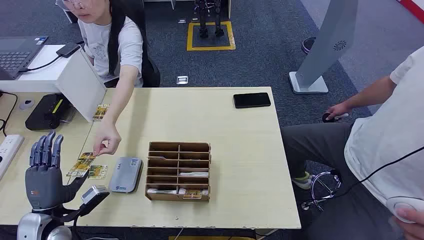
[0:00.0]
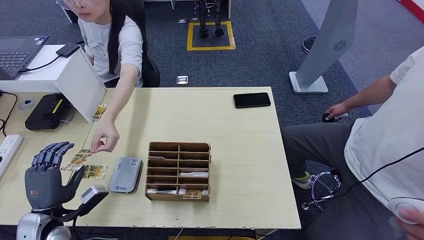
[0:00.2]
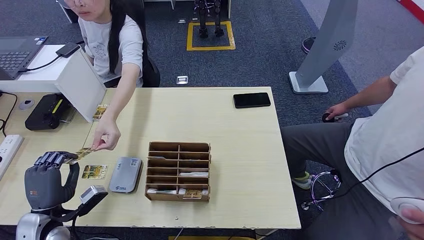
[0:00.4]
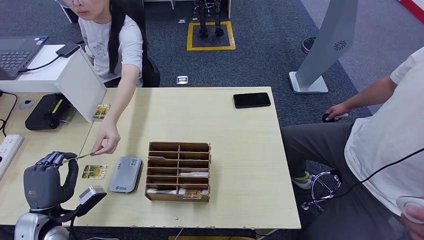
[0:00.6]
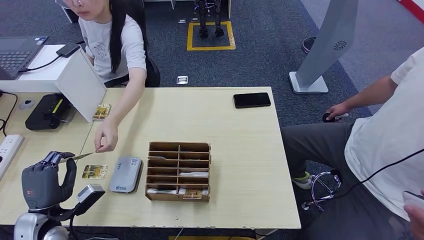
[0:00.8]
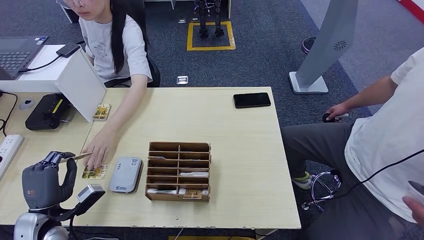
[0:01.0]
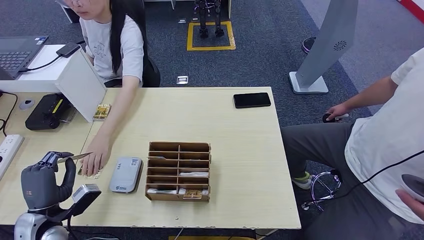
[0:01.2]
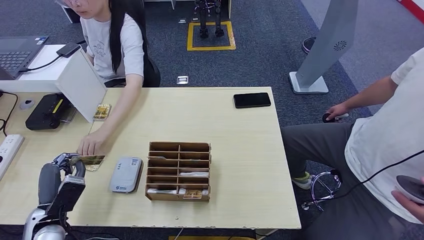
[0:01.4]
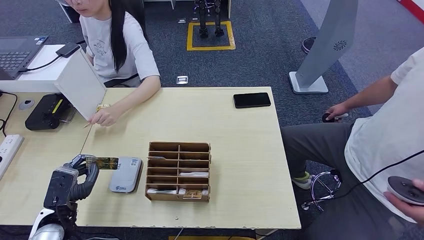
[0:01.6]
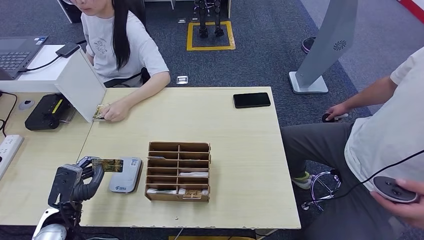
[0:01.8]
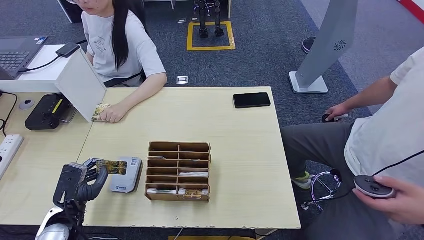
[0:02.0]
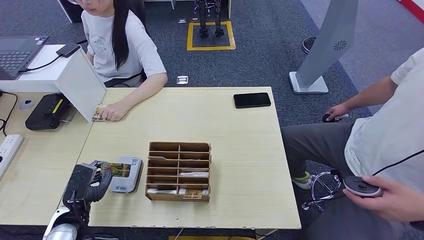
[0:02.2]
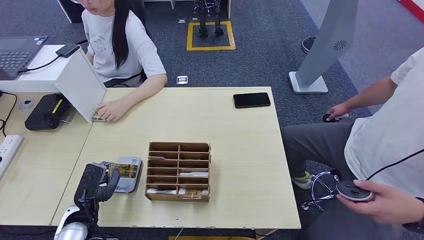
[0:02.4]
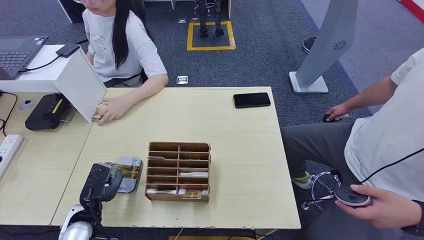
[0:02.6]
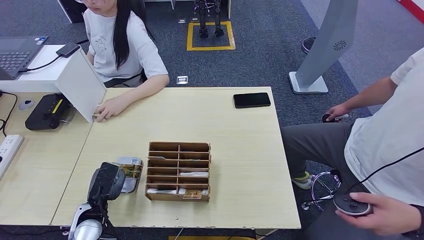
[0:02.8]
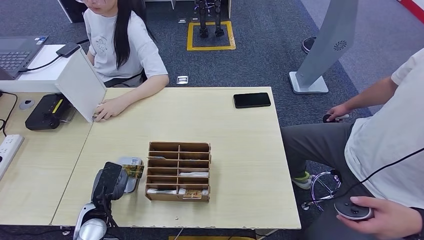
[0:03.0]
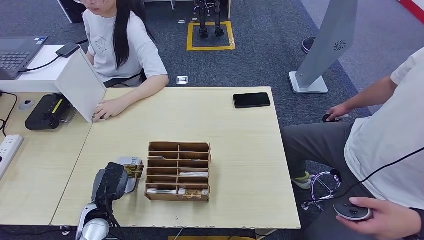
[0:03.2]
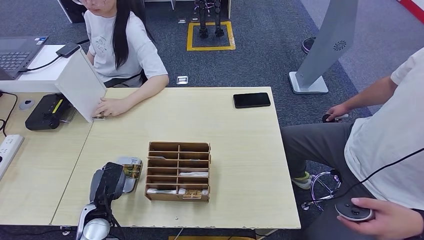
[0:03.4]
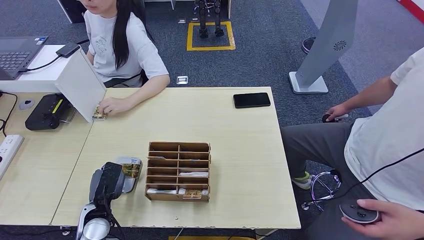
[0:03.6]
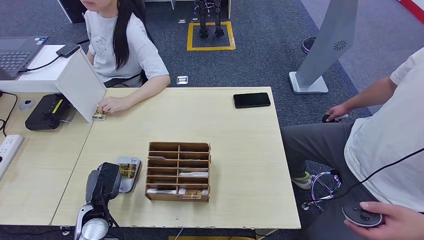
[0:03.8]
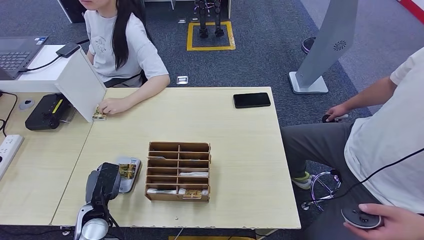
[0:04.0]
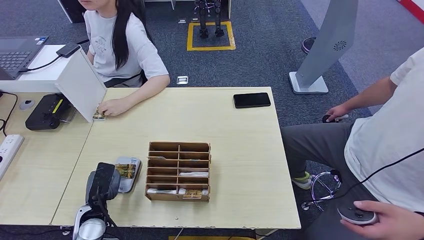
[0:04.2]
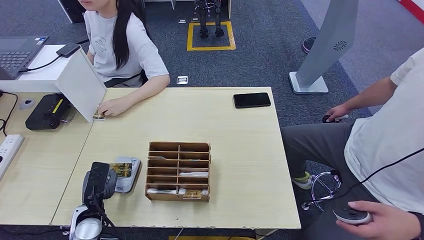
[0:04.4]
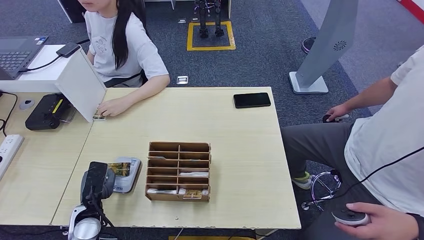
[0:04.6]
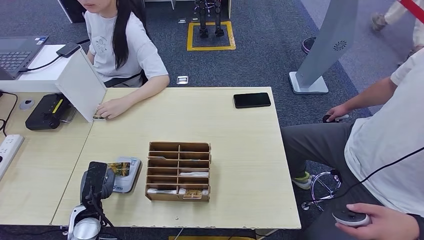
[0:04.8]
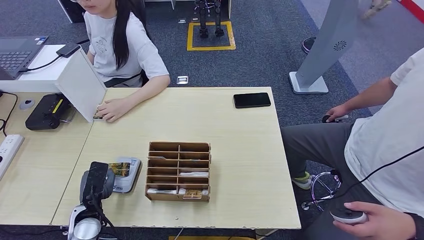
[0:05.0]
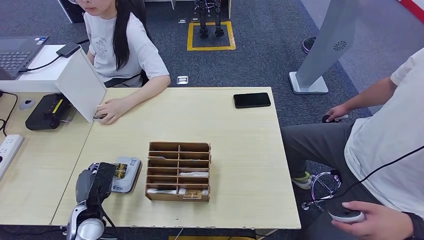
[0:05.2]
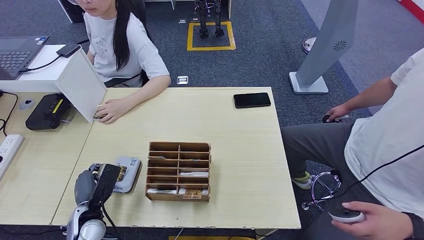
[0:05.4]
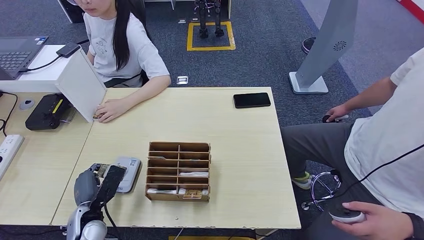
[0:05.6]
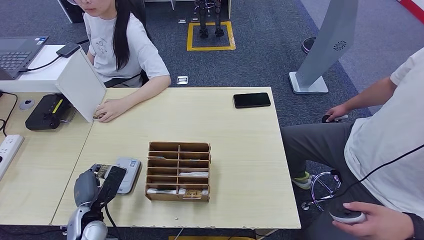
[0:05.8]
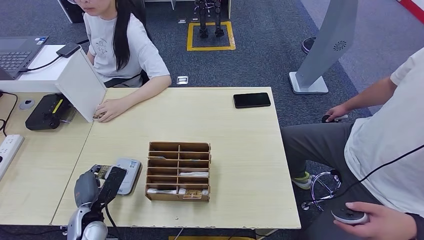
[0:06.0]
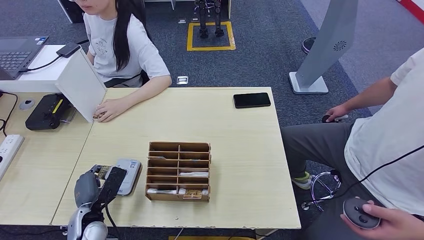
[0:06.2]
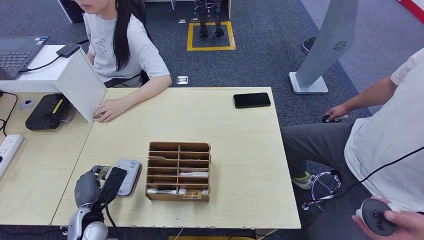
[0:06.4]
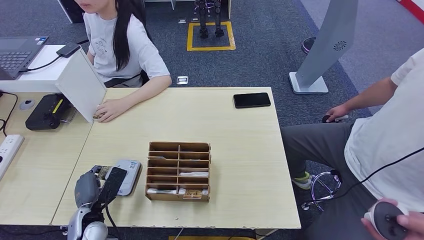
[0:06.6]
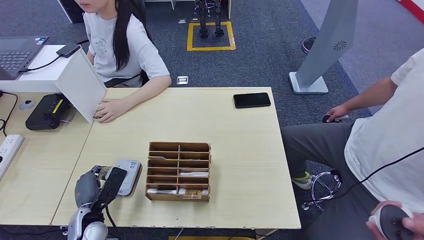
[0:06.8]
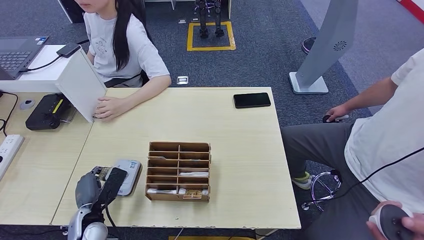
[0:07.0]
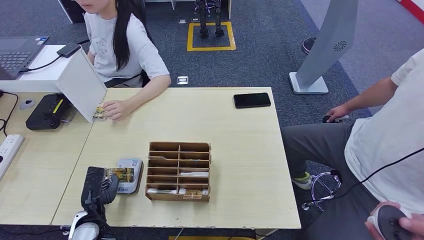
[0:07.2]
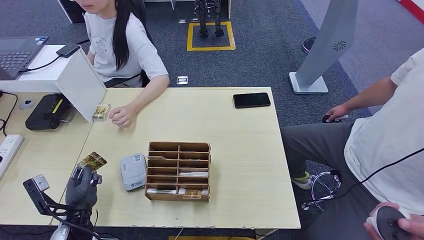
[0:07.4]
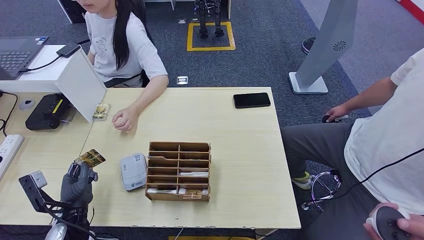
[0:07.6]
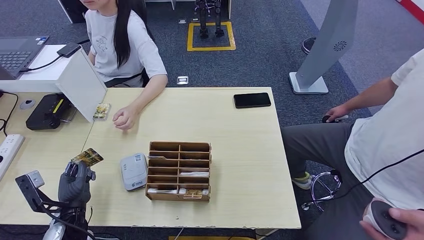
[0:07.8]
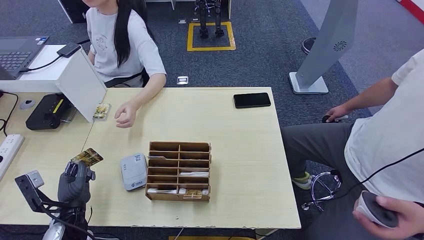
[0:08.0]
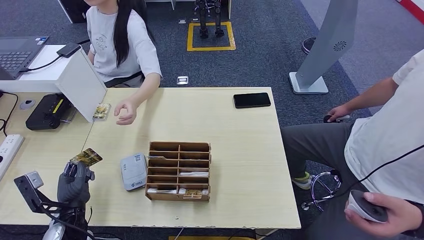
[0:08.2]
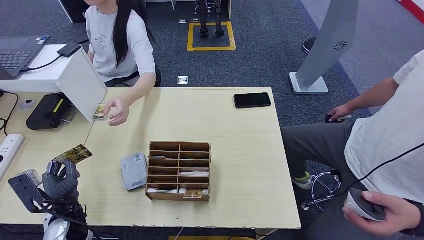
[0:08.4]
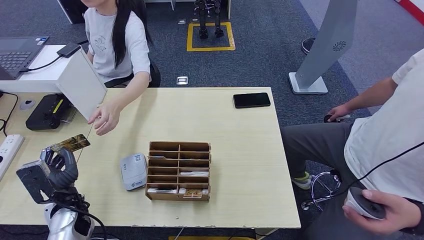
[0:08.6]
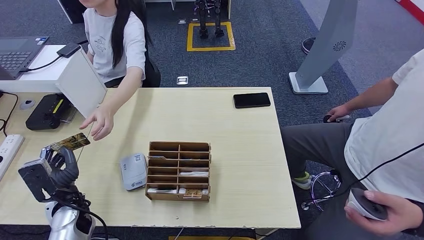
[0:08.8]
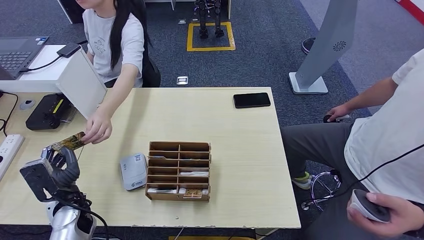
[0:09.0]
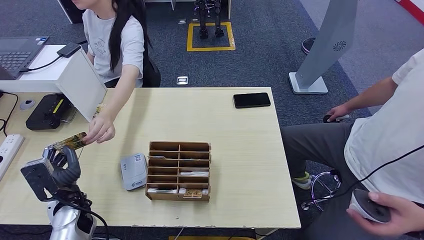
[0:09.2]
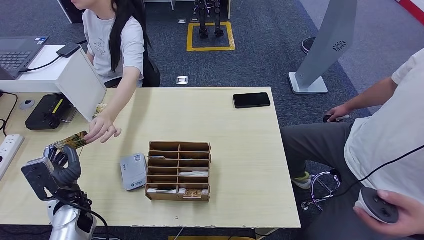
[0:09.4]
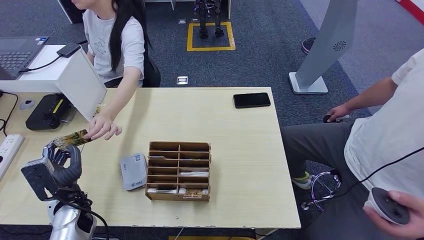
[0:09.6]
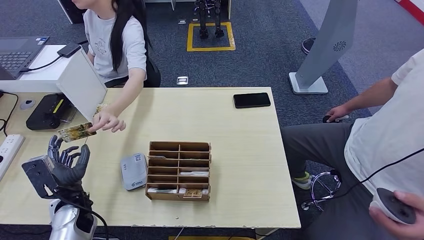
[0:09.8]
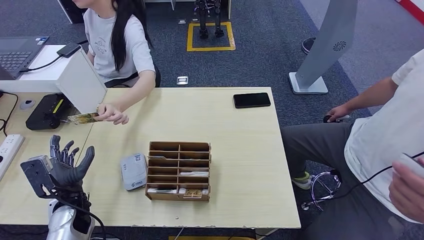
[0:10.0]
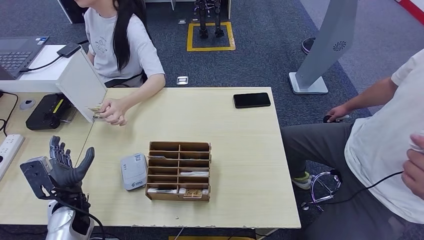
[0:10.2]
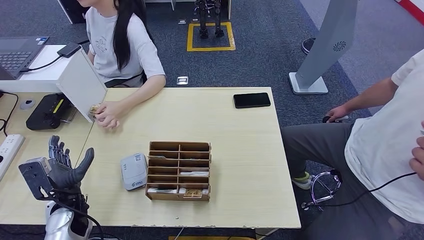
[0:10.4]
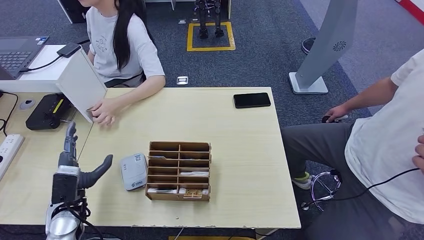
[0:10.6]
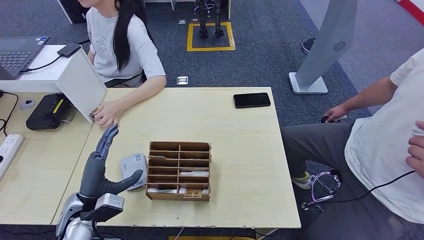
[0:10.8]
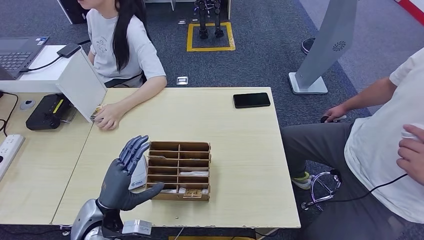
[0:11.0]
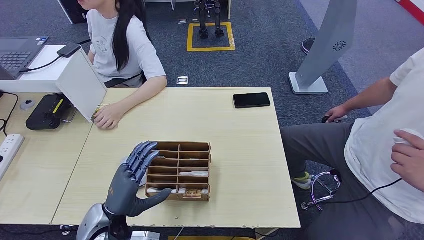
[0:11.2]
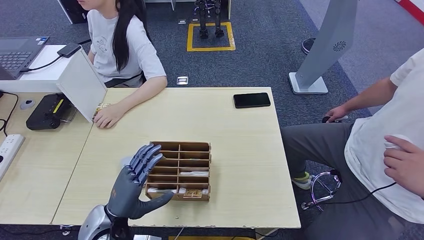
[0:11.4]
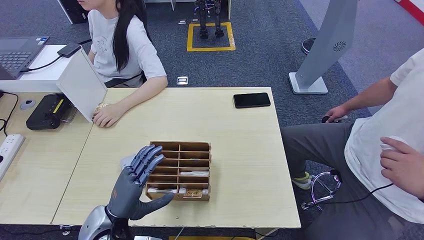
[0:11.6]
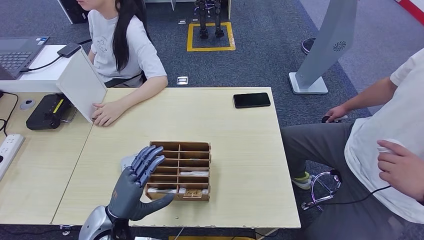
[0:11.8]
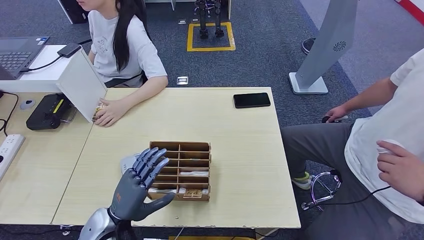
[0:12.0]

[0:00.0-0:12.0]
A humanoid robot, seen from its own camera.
Step, 0:00.0 to 0:01.0: Take the ID card from the person's hand.
Step, 0:02.0 to 0:04.0: Place the ID card on the card reader.
Step, 0:06.6 to 0:10.2: Hand the ID card to the person.
0:01.6 to 0:03.0: The left hand is displaced to the right by some 5 cm.
0:03.0 to 0:04.4: There are only small adjustments of the hands.
0:09.0 to 0:10.4: There are only small adjustments of the hands.
0:10.4 to 0:12.0: The left hand shifts about 15 cm to the right and backward.

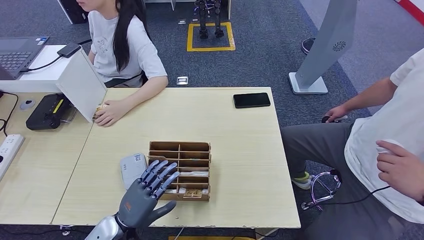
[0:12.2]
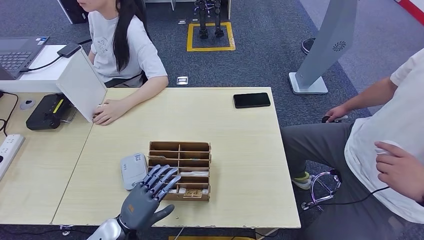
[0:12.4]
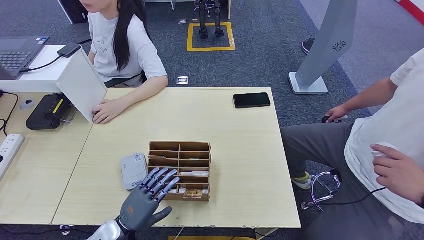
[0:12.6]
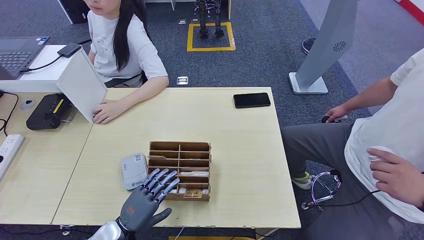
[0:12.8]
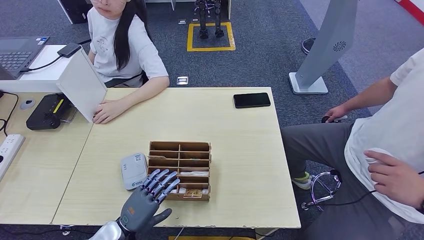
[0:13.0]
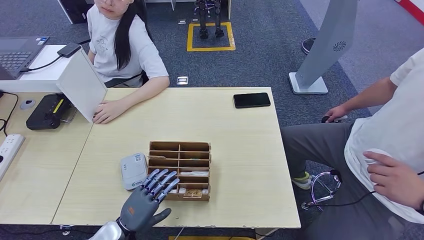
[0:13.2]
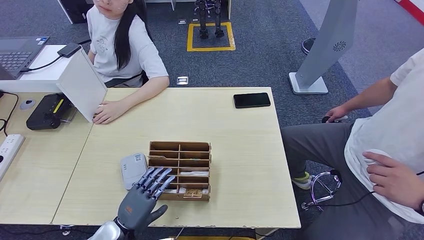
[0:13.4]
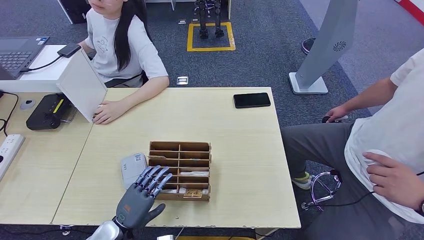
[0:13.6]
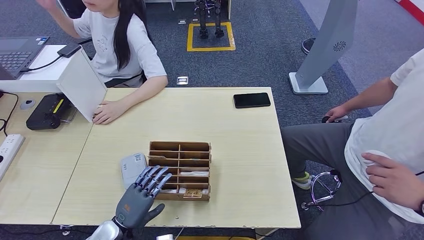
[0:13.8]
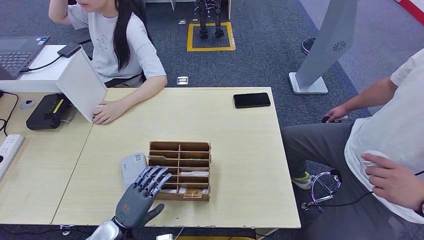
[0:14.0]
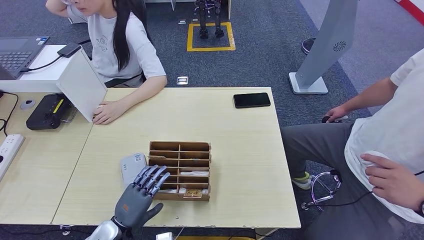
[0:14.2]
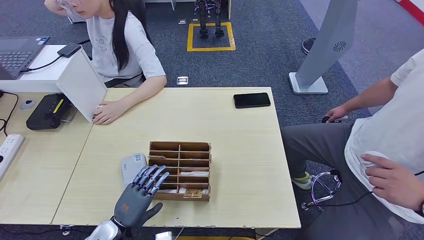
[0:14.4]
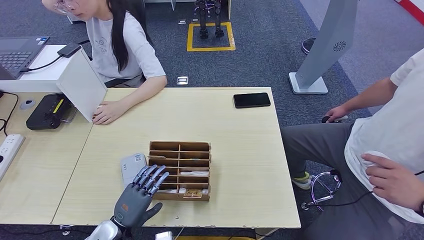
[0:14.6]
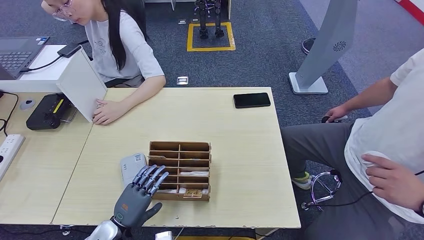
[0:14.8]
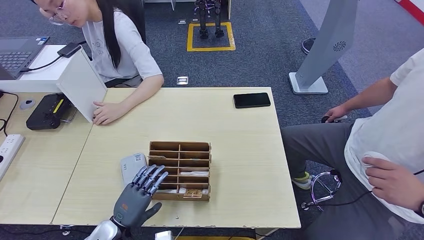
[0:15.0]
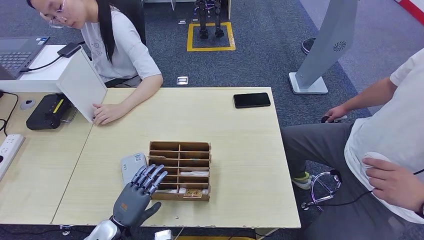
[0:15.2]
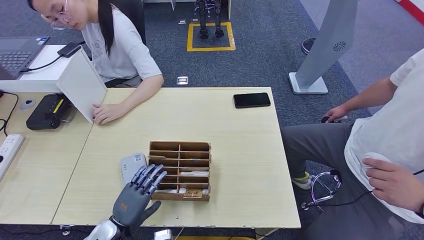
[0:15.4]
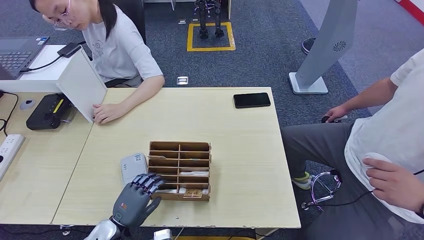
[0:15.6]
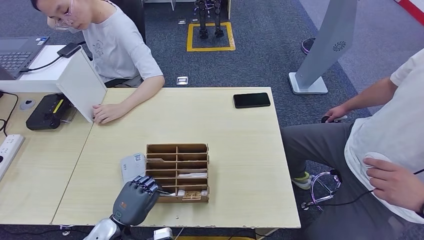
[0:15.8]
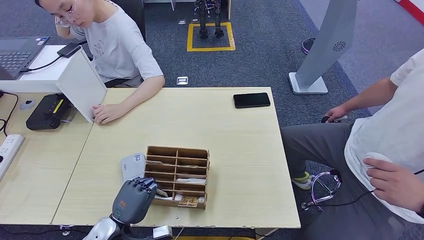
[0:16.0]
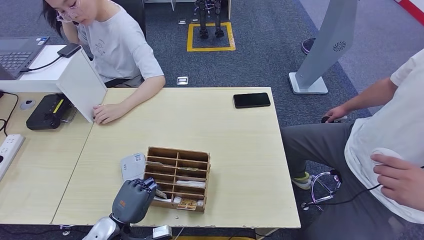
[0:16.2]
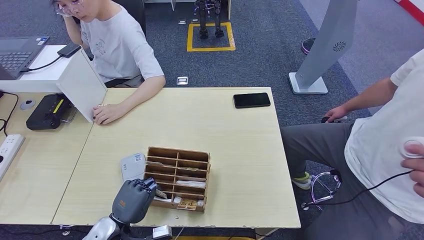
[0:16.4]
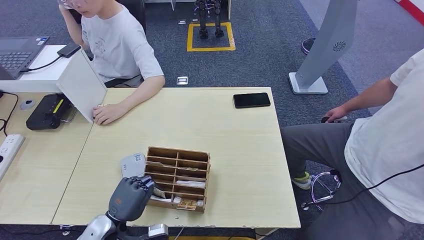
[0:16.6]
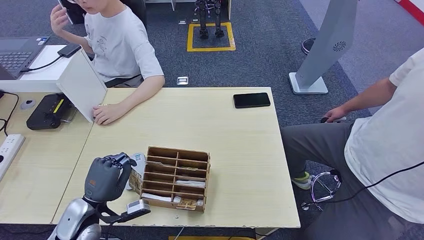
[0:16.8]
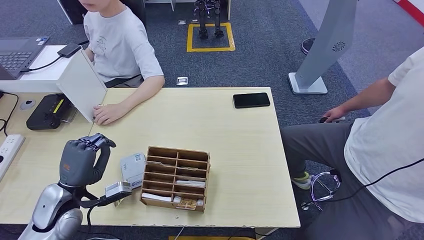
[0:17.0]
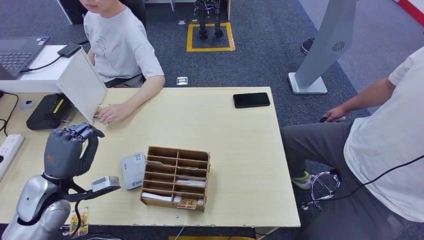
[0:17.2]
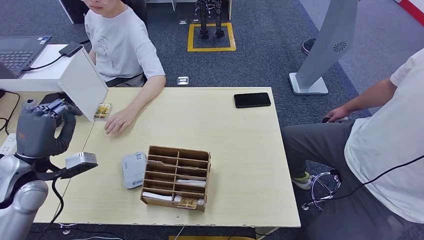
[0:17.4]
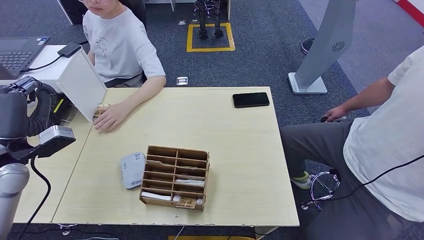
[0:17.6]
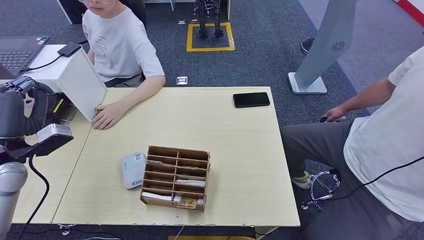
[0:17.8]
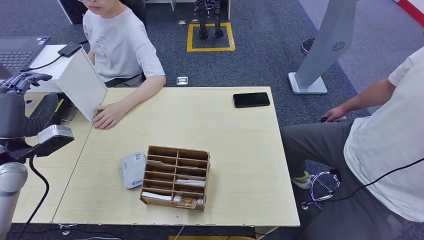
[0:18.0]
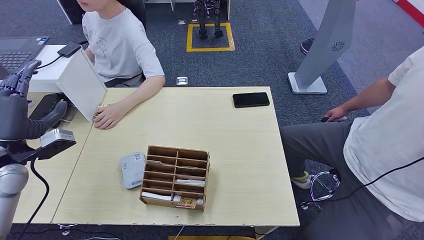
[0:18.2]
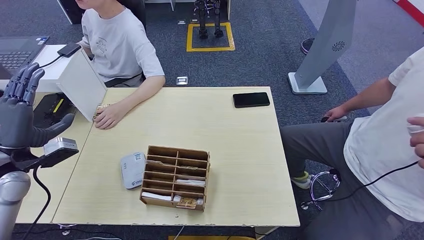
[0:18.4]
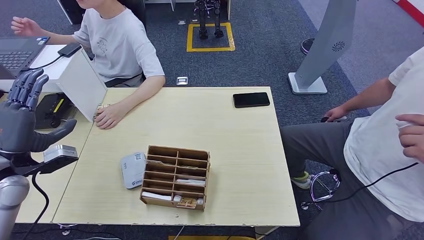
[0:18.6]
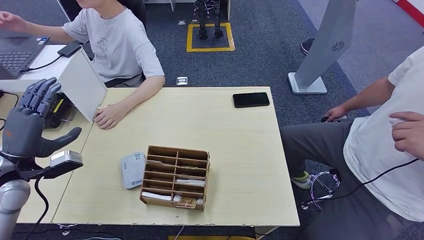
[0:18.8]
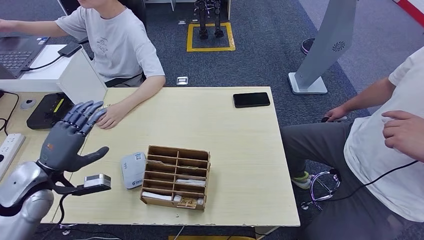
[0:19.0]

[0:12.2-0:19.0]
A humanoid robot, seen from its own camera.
0:12.2 to 0:13.6: The hands make only small movements.
0:13.6 to 0:15.0: Both hands stay about where they are.
0:15.0 to 0:16.2: The two hands keep their place.
0:16.2 to 0:17.6: The left hand heads upward, to the left and forward, covering roughly 30 cm.
0:17.6 to 0:19.0: The left hand travels downward by some 5 cm.
